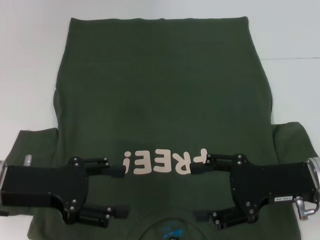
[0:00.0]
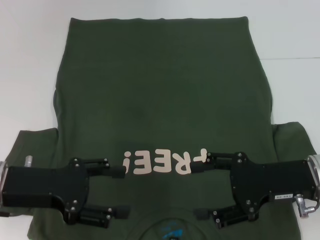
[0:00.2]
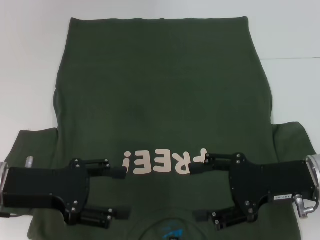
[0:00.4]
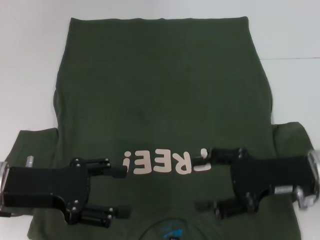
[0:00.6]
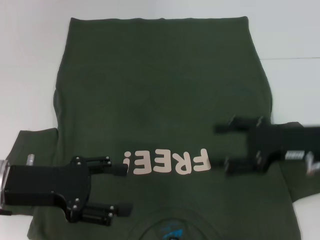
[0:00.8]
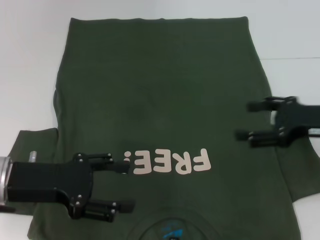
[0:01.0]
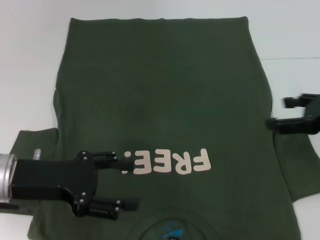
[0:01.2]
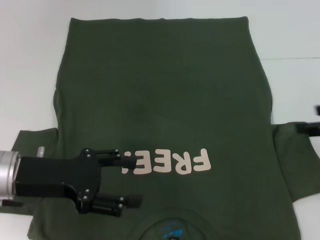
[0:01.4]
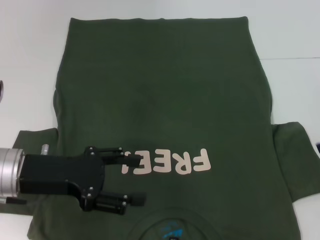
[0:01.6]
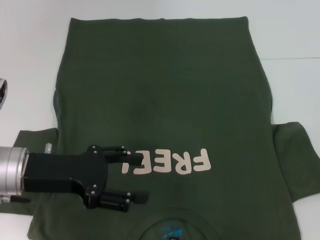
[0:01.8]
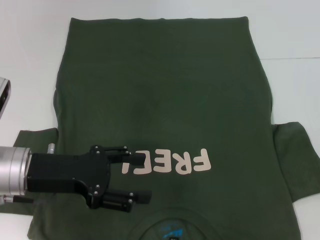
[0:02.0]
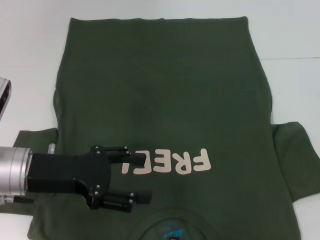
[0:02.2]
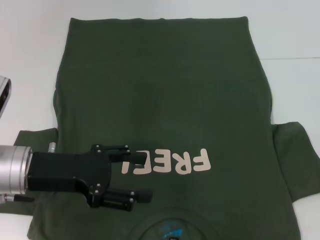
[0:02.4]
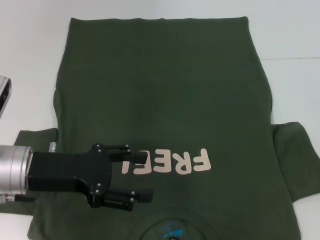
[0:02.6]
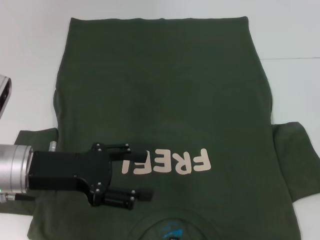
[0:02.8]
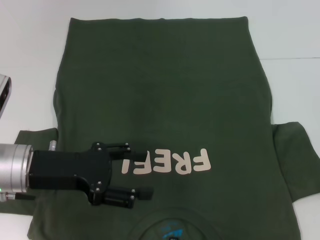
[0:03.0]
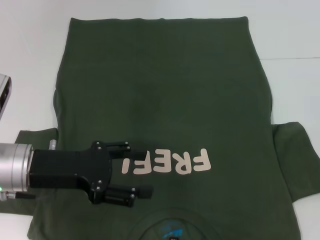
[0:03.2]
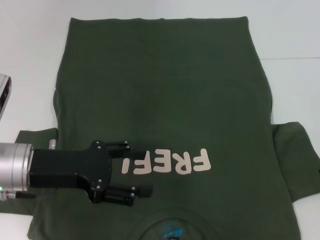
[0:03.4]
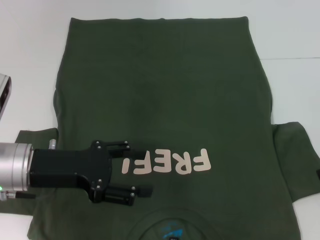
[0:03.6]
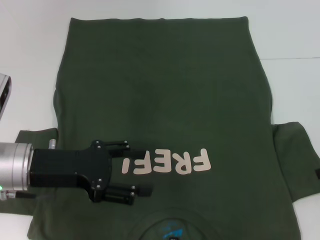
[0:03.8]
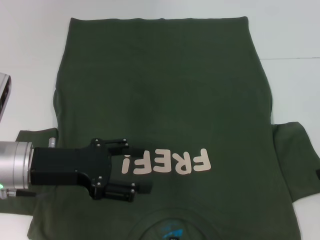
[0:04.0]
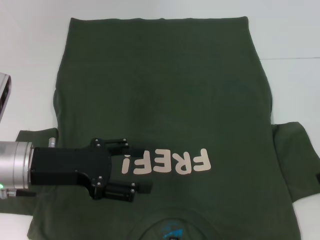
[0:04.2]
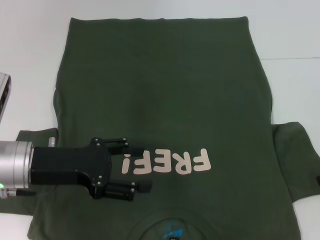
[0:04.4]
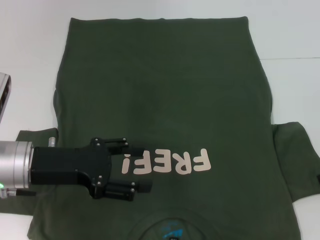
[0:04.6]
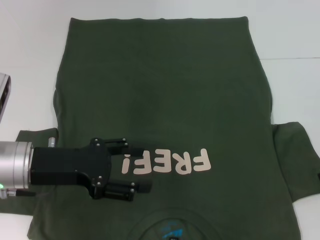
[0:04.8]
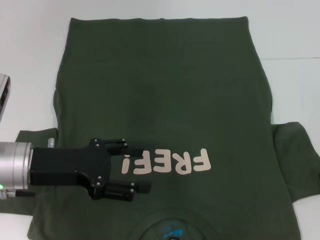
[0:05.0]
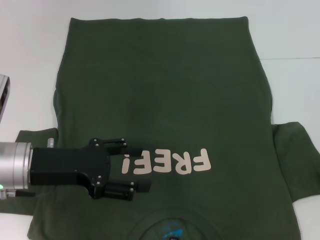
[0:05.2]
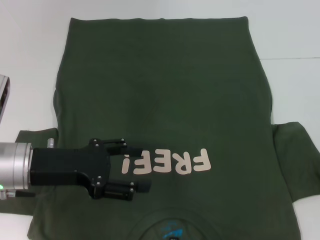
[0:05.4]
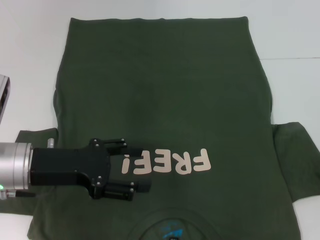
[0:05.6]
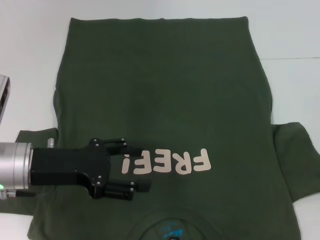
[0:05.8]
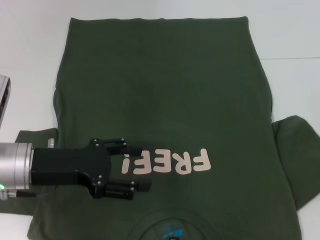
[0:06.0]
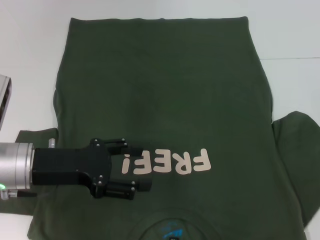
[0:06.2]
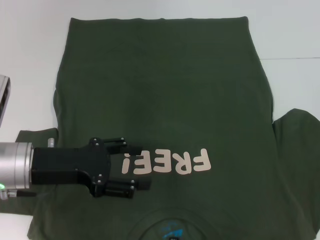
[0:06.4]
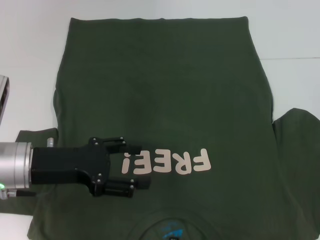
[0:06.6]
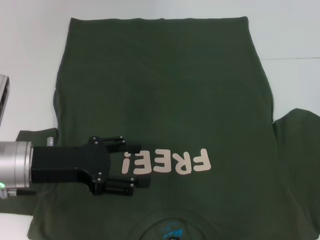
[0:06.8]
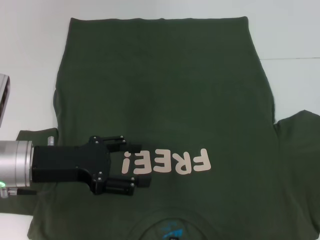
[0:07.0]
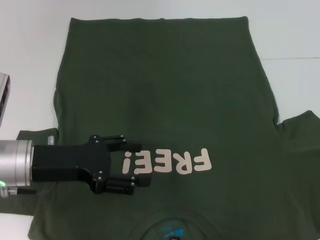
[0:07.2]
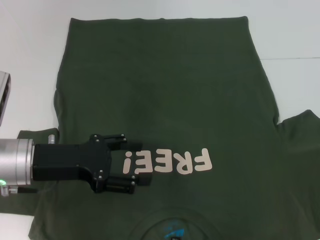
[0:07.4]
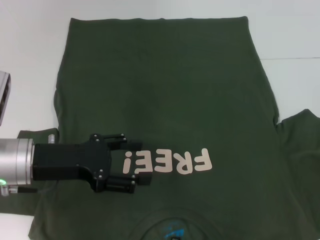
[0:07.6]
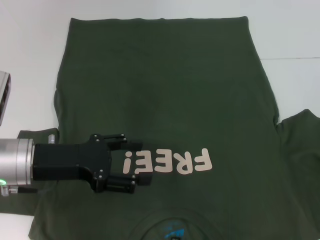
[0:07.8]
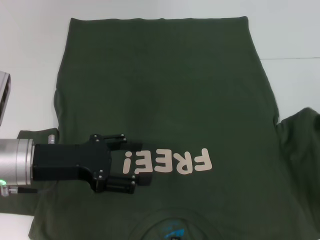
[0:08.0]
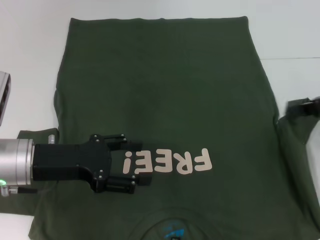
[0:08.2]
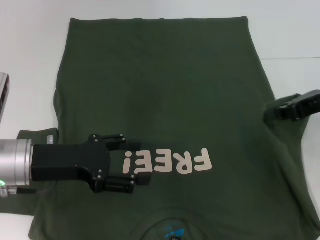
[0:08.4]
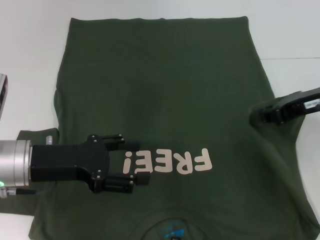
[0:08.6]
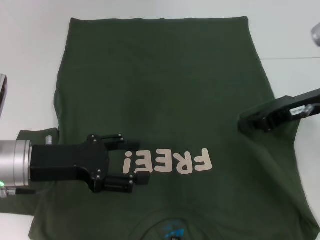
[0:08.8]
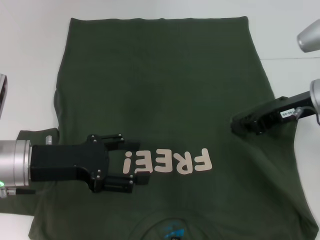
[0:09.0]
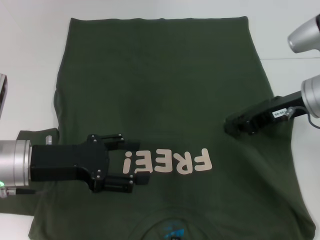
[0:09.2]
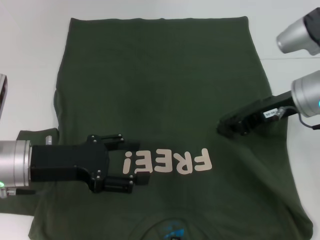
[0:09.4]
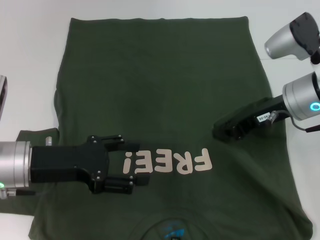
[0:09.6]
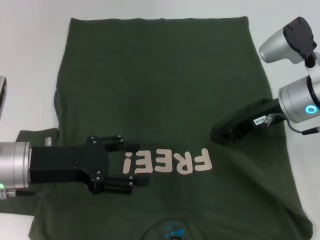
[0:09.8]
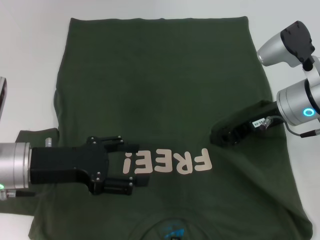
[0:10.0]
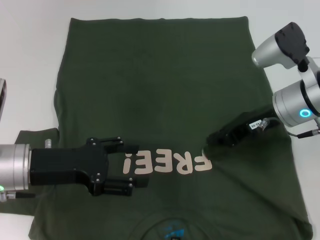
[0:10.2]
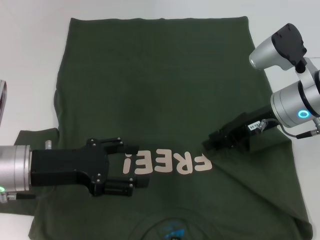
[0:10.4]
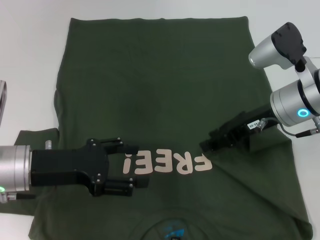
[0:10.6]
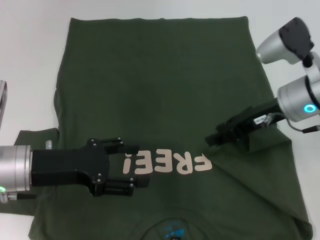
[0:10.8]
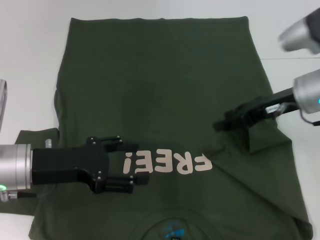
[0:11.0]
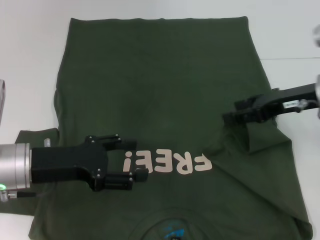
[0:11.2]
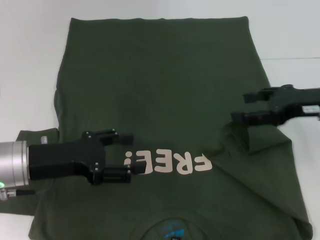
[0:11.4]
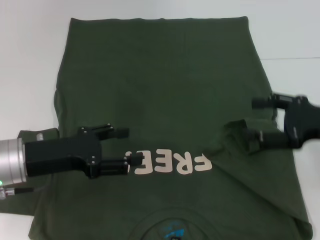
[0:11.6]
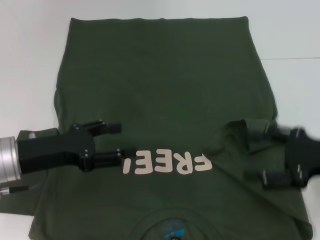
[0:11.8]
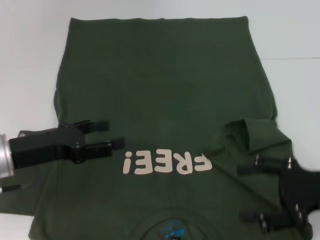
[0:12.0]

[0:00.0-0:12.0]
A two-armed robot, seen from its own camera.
0:00.0 to 0:01.6: The right gripper goes about 15 cm to the right and upward.
0:03.0 to 0:04.4: The grippers stay close to where they were, moving slightly.
0:04.4 to 0:06.0: The right gripper closes.
0:06.0 to 0:07.6: The grippers move only a little.
0:07.6 to 0:09.0: The right gripper is displaced to the left by about 15 cm.
0:09.0 to 0:10.4: The right gripper shifts by about 5 cm.
0:10.4 to 0:12.0: The right gripper goes roughly 15 cm backward and to the right, and opens.

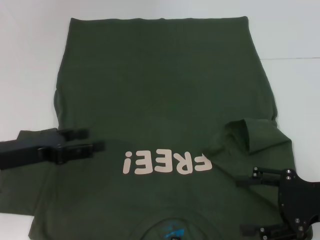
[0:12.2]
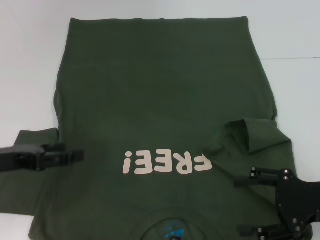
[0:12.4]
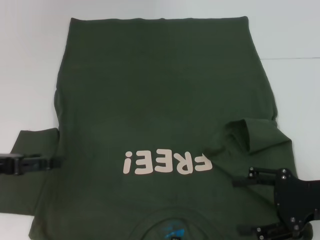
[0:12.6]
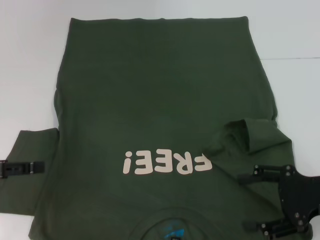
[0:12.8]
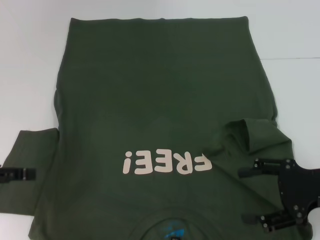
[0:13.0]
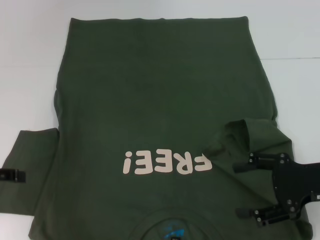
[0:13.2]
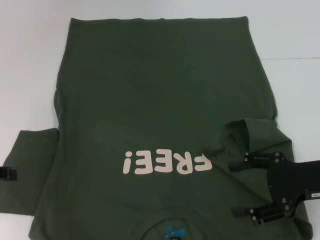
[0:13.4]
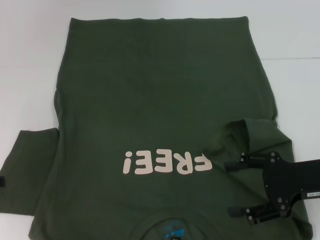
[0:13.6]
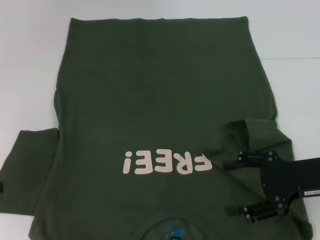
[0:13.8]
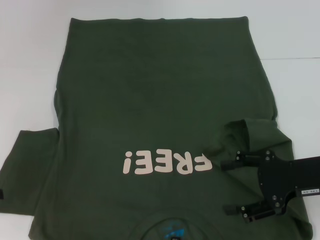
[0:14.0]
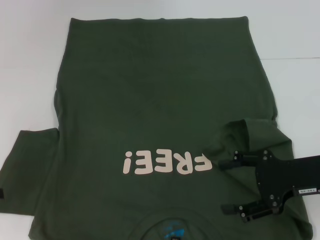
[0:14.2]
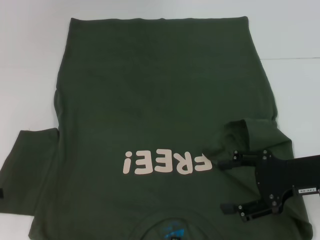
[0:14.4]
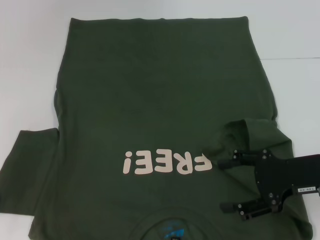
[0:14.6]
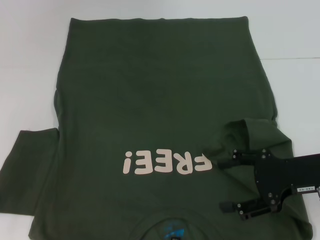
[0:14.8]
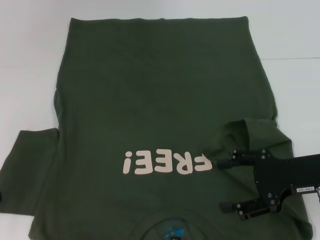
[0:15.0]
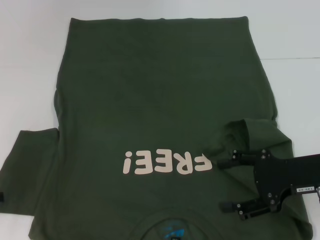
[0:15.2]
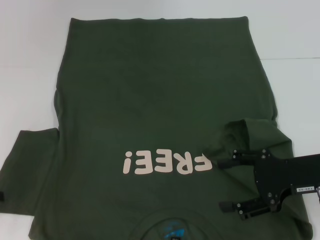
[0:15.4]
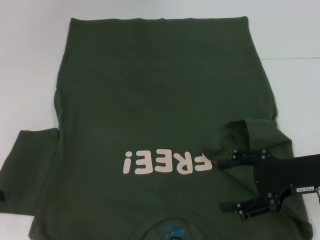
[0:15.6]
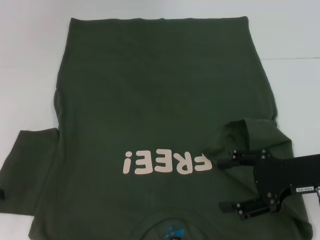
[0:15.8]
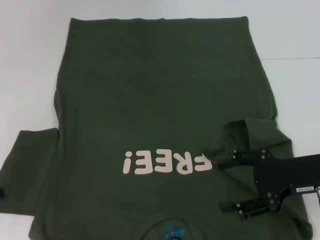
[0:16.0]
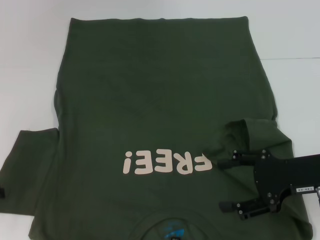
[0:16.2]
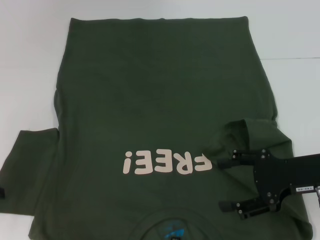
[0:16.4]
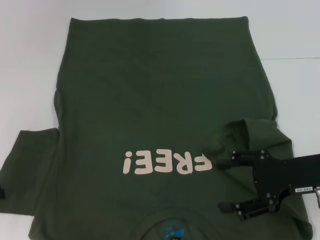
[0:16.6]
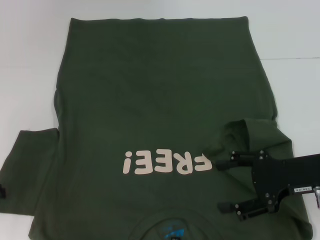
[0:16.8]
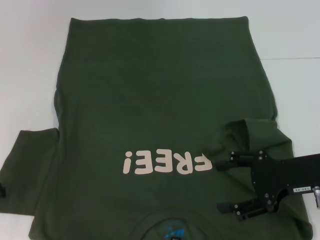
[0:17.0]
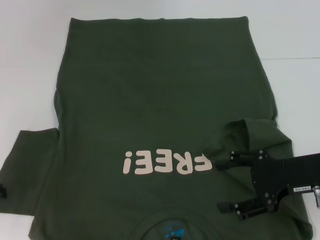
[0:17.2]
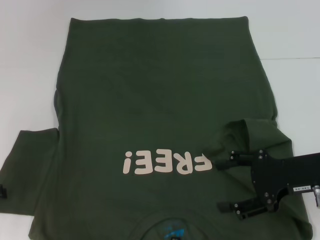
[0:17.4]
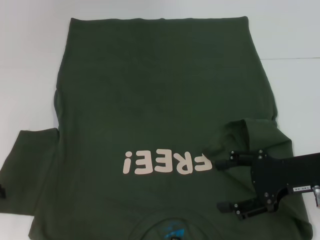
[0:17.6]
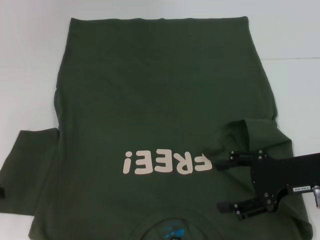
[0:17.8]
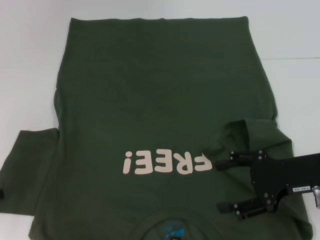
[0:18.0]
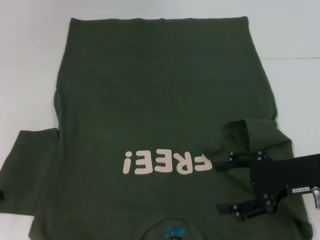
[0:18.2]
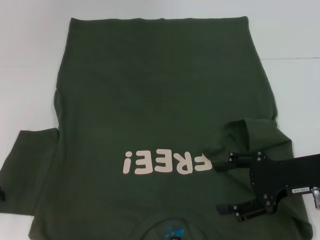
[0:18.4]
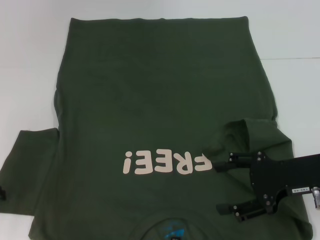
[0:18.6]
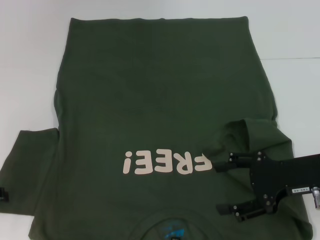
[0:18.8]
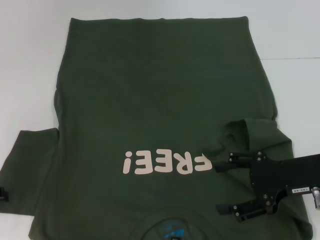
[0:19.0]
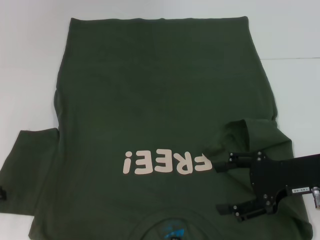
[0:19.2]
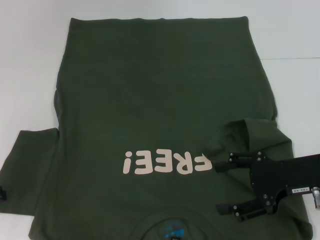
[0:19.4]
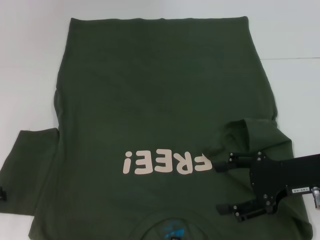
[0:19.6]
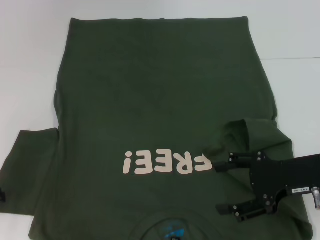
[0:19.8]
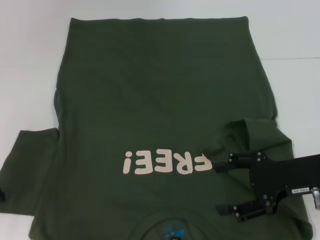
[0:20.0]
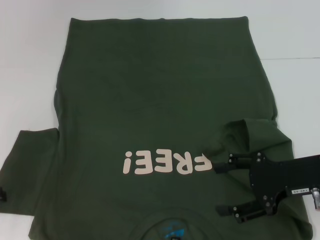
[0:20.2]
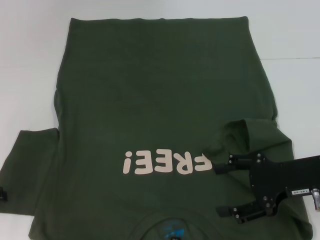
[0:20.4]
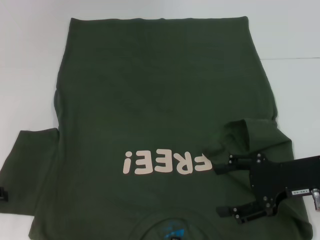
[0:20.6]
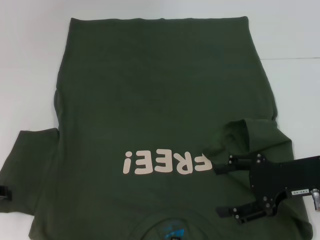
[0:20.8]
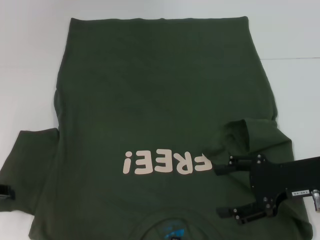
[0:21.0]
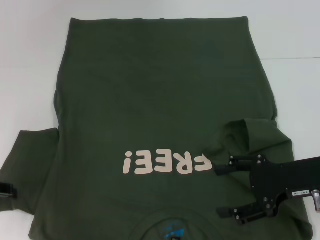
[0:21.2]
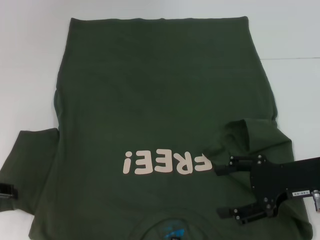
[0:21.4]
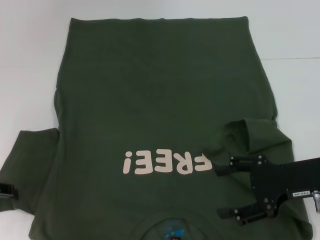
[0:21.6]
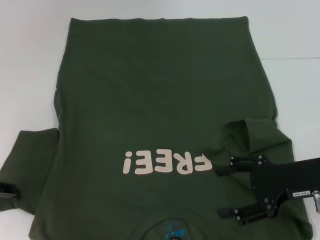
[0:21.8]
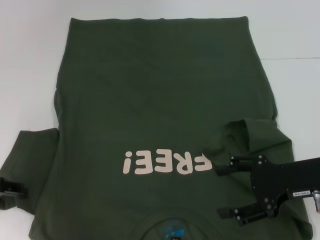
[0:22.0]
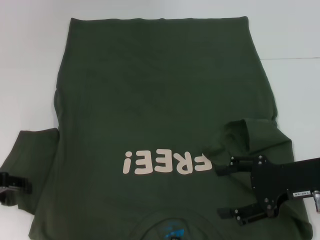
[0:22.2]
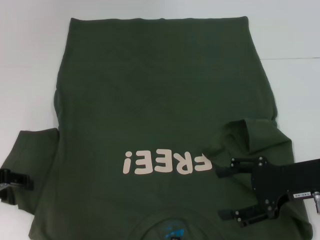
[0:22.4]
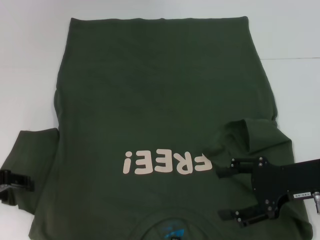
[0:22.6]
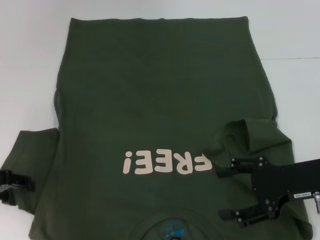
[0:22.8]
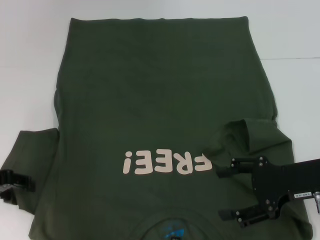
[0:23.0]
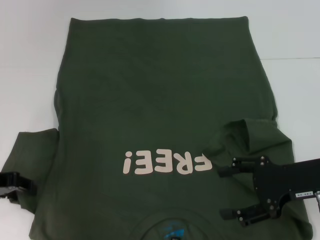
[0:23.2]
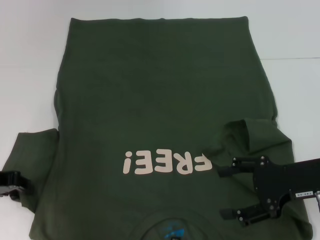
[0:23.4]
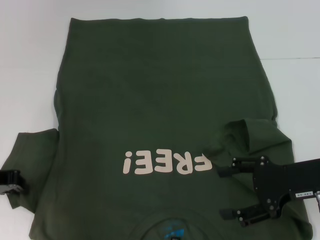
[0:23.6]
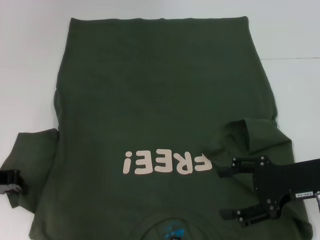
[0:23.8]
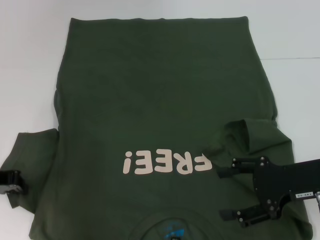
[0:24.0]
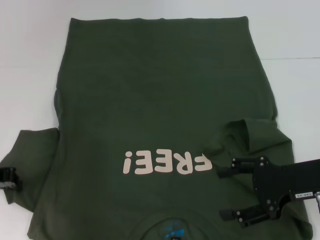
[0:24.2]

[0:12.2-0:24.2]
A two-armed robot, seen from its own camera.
0:12.2 to 0:13.8: The left gripper goes about 10 cm to the left.
0:13.8 to 0:15.2: There are only small adjustments of the grippers.
0:15.2 to 0:19.8: The two grippers keep their place.
0:19.8 to 0:22.6: The grippers make only small movements.
0:22.6 to 0:24.2: The left gripper closes up.
